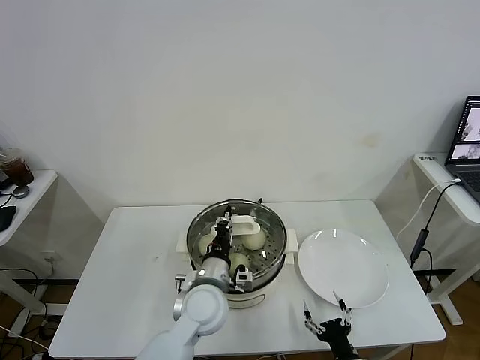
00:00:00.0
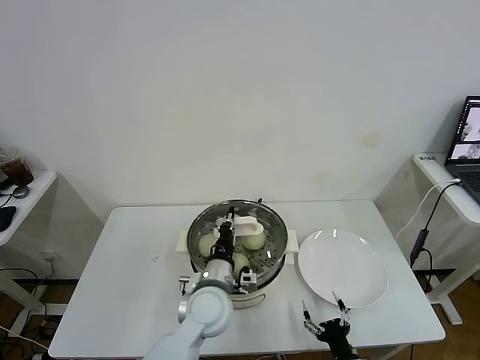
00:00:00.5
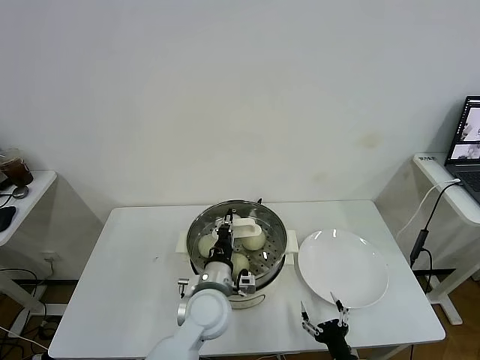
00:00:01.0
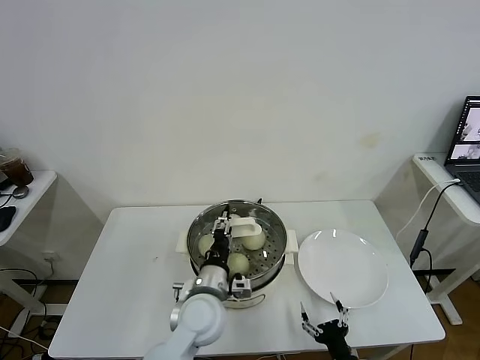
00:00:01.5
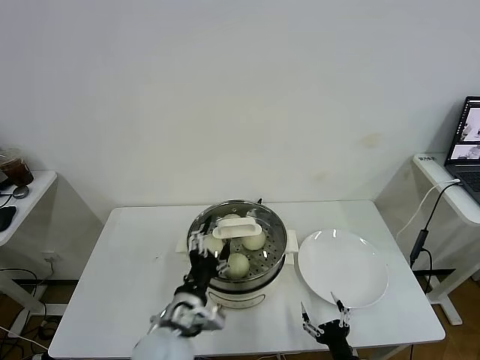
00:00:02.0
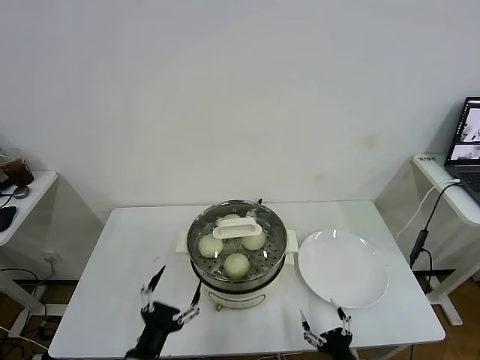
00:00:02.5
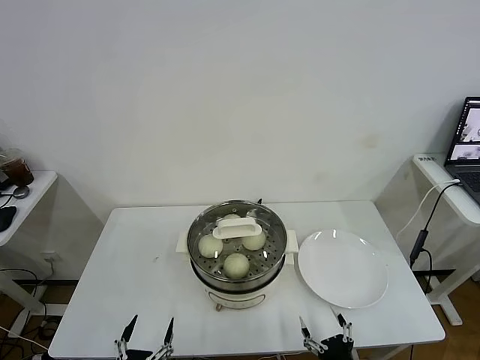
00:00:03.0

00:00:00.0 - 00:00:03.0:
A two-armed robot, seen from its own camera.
Task of the whole recording: take steamed baozi put them in steamer.
00:00:00.0 - 00:00:01.5: The left gripper opens its fingers.
00:00:01.5 - 00:00:03.0: The left gripper travels backward and to the left by some 30 cm, and opens; the right gripper changes place by about 5 cm.
